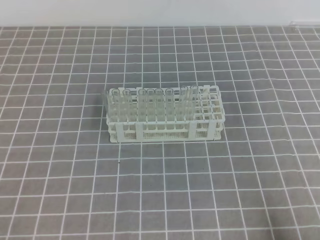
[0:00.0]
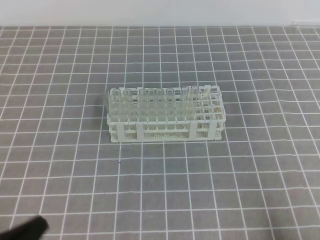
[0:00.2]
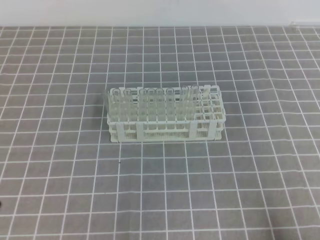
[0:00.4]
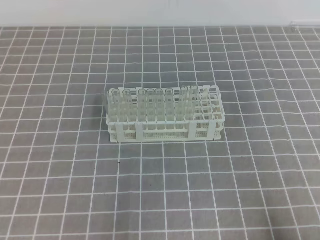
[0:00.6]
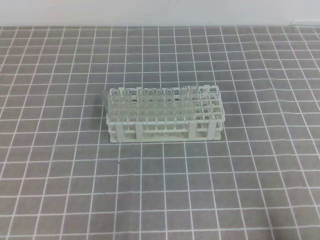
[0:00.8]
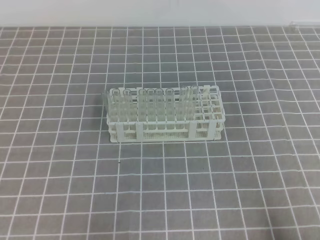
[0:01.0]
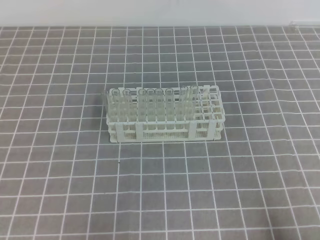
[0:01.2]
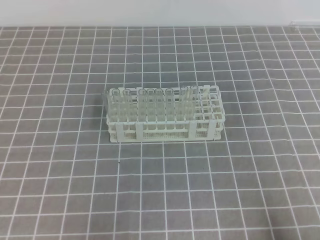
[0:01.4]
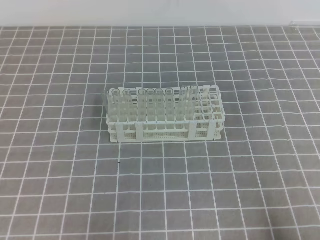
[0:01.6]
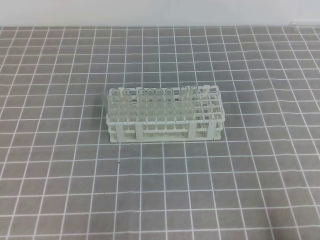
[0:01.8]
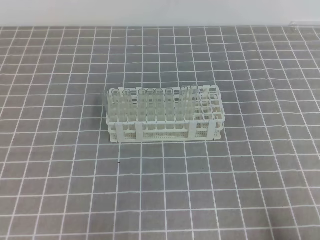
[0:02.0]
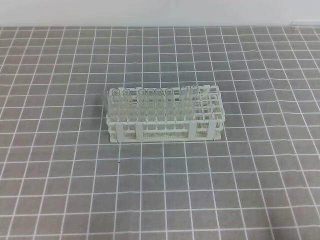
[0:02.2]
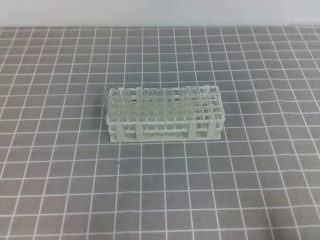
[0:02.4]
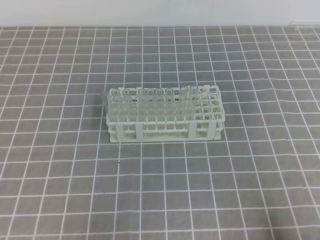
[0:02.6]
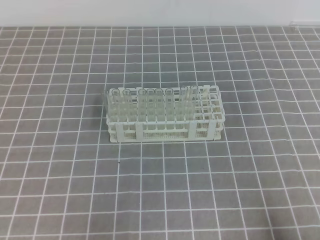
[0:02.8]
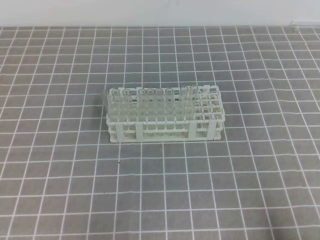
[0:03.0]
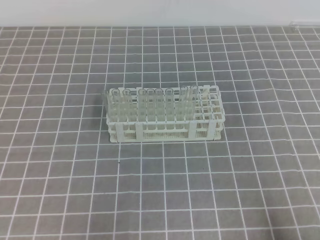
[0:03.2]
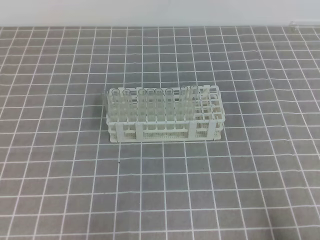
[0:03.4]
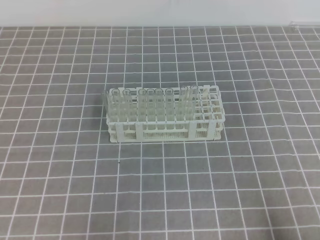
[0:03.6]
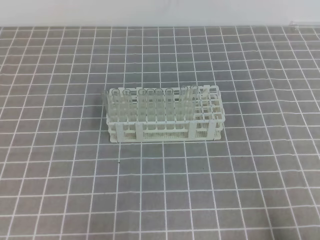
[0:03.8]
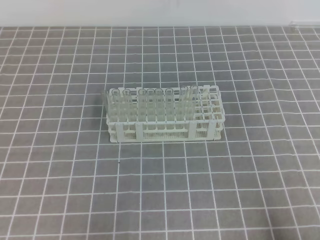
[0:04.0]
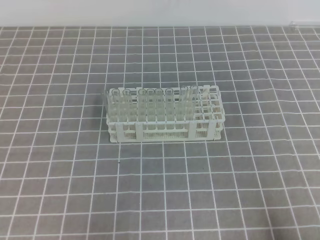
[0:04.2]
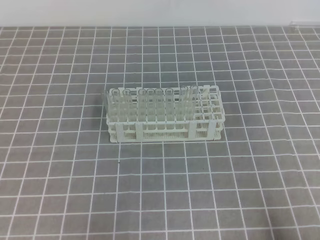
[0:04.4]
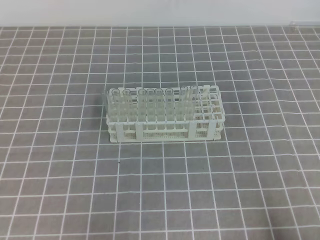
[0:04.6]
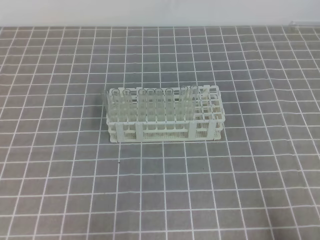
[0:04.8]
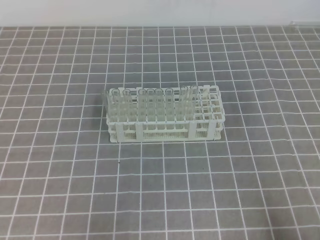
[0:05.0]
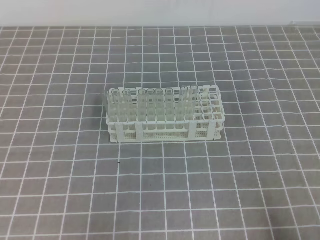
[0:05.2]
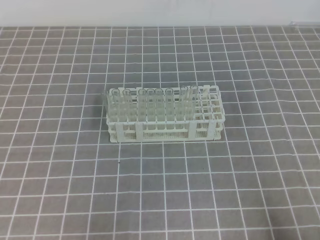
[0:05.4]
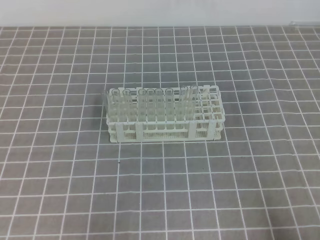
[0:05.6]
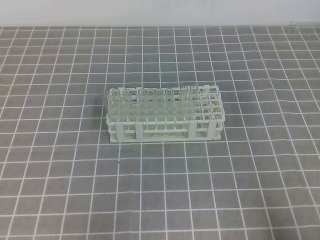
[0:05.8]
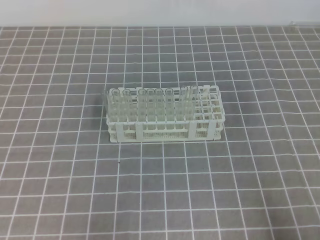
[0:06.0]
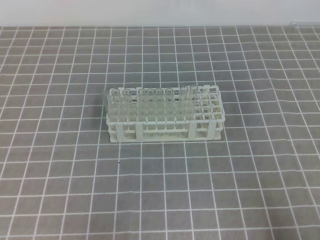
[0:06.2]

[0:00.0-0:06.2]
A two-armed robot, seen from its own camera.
0:01.6 to 0:06.2: Neither gripper changes place.
